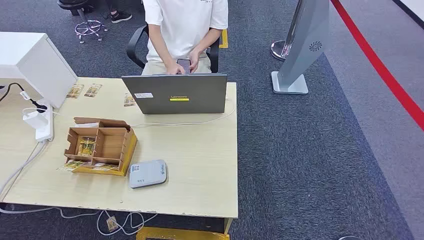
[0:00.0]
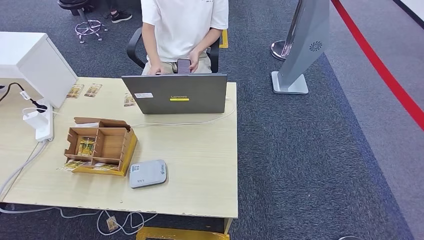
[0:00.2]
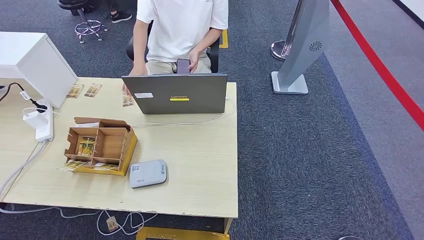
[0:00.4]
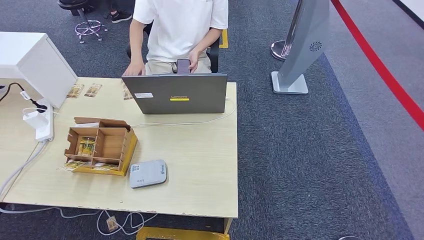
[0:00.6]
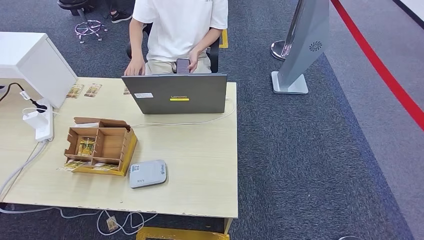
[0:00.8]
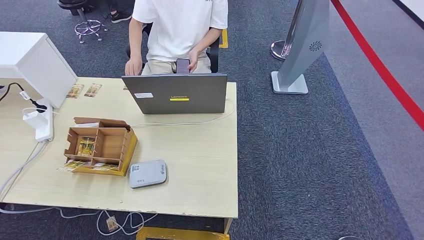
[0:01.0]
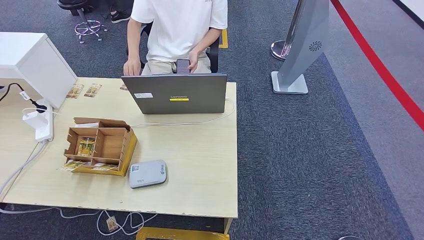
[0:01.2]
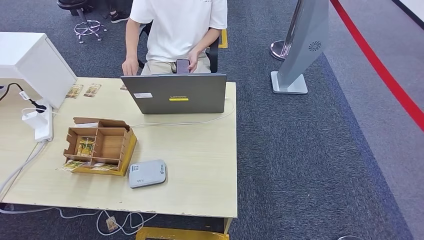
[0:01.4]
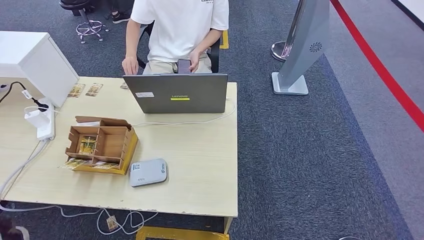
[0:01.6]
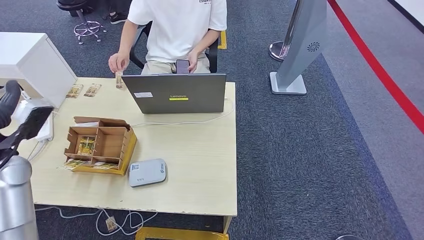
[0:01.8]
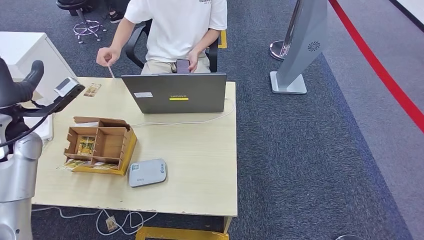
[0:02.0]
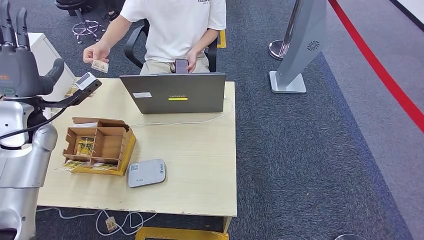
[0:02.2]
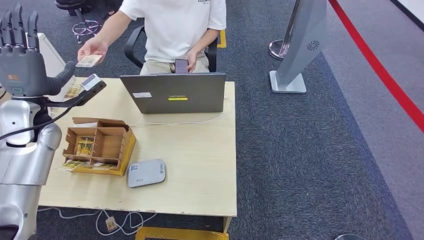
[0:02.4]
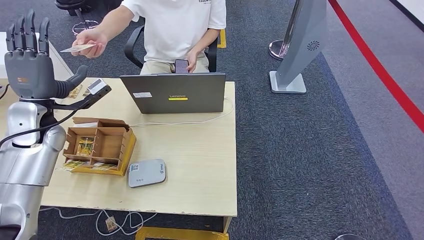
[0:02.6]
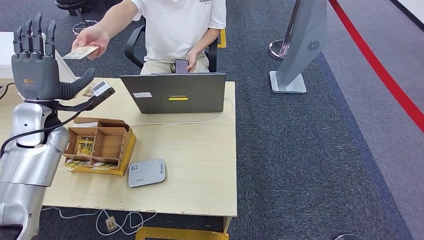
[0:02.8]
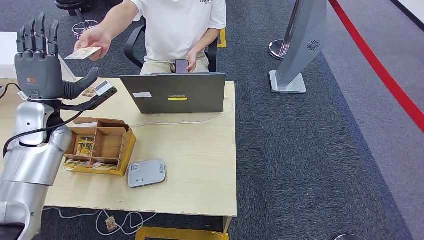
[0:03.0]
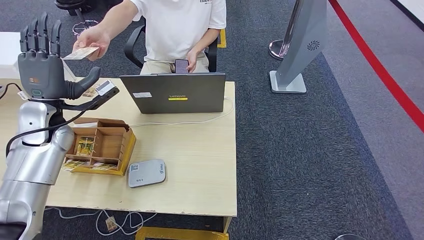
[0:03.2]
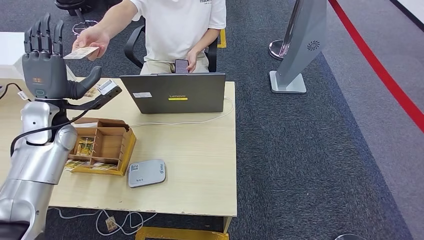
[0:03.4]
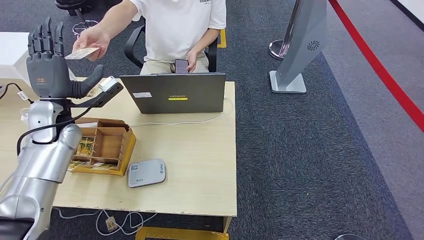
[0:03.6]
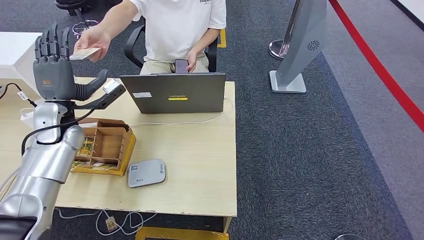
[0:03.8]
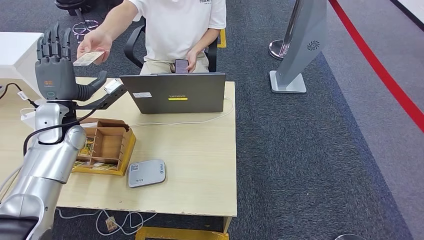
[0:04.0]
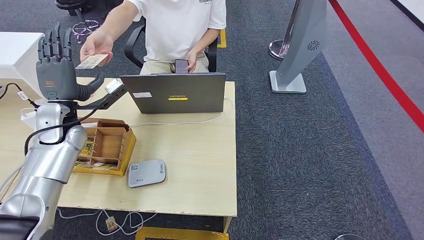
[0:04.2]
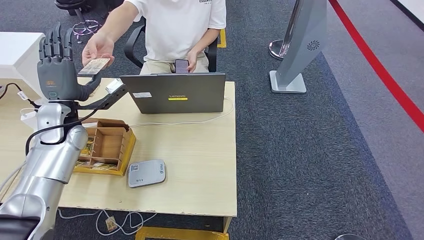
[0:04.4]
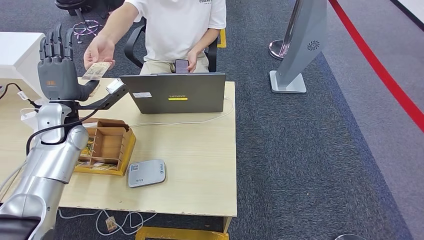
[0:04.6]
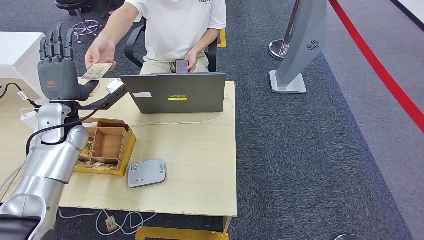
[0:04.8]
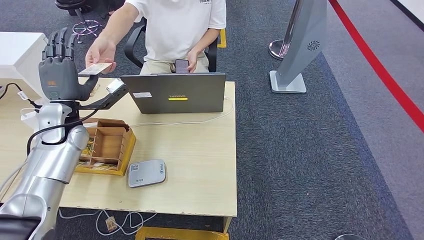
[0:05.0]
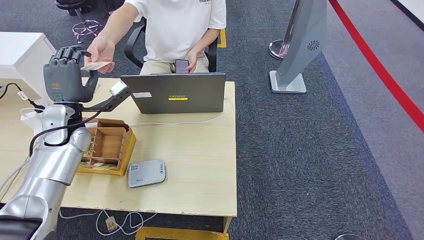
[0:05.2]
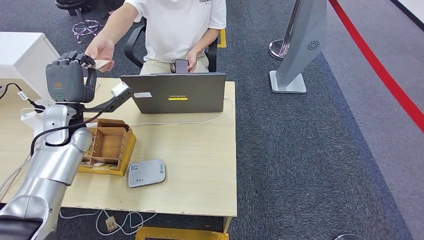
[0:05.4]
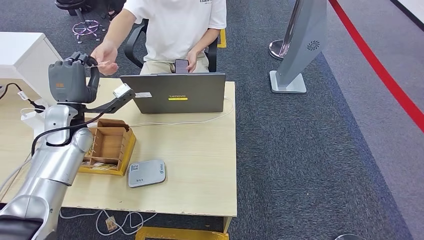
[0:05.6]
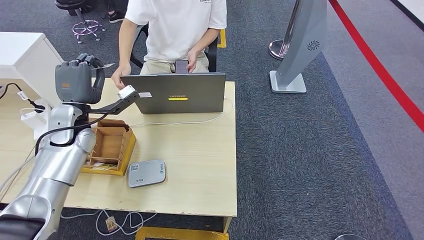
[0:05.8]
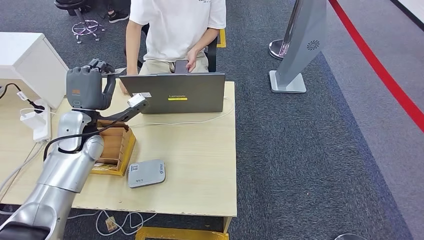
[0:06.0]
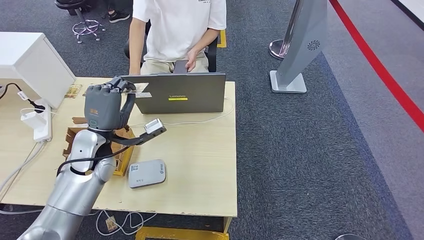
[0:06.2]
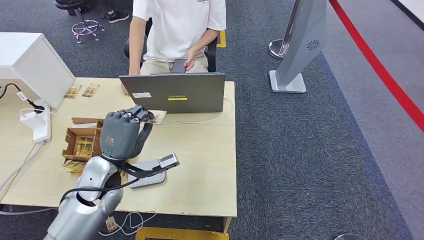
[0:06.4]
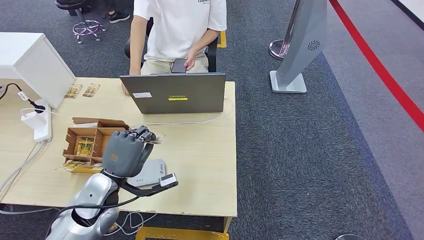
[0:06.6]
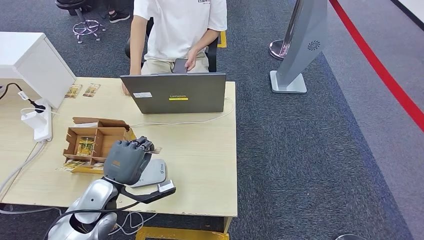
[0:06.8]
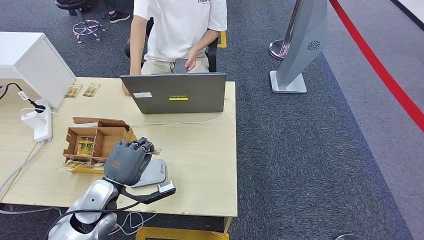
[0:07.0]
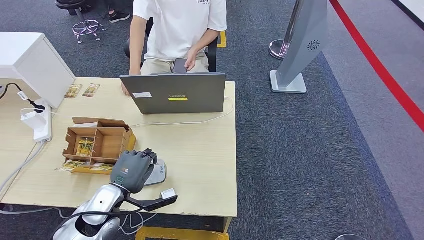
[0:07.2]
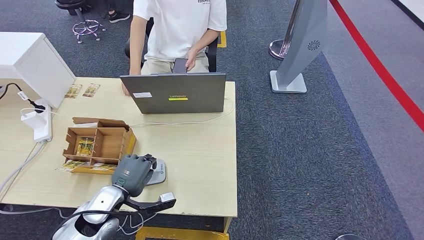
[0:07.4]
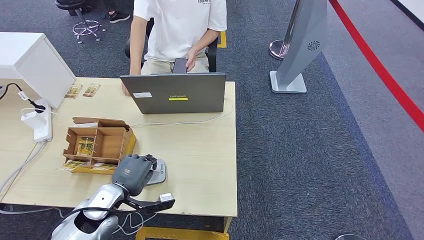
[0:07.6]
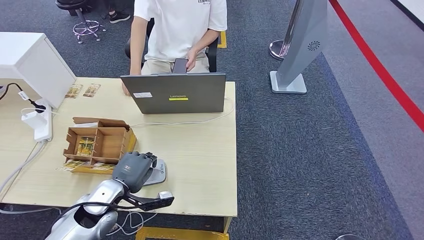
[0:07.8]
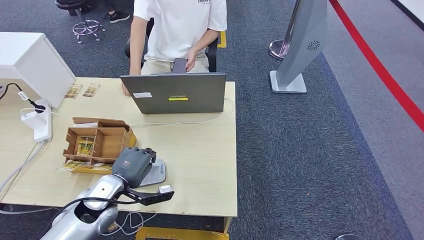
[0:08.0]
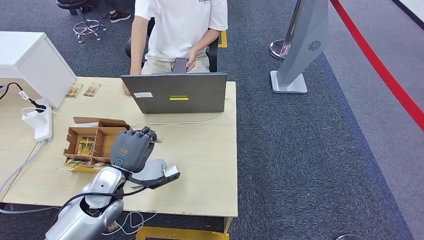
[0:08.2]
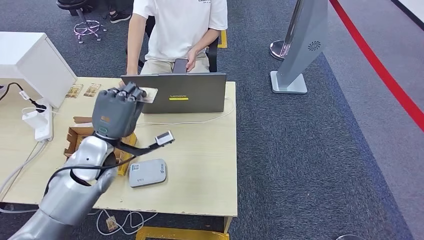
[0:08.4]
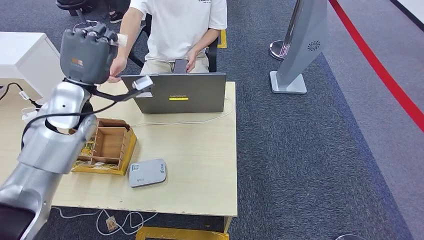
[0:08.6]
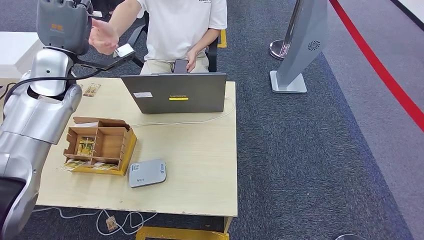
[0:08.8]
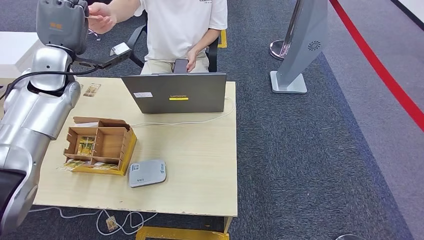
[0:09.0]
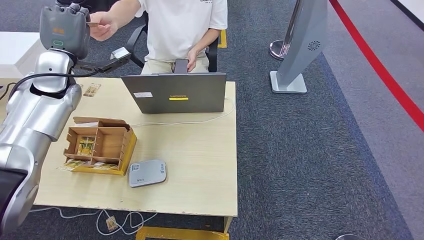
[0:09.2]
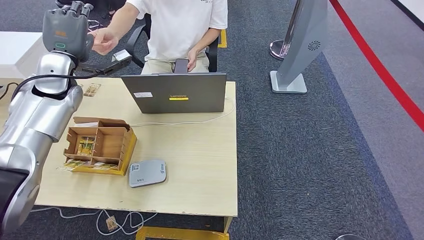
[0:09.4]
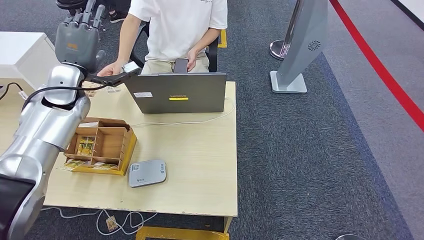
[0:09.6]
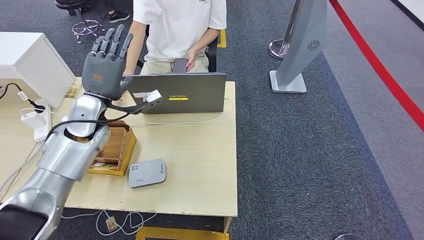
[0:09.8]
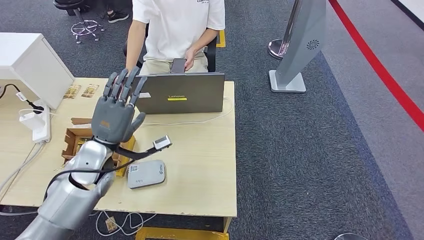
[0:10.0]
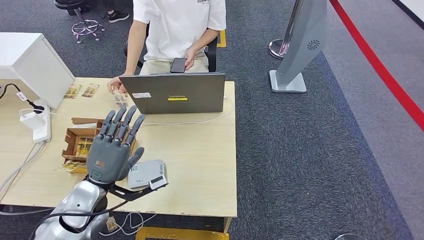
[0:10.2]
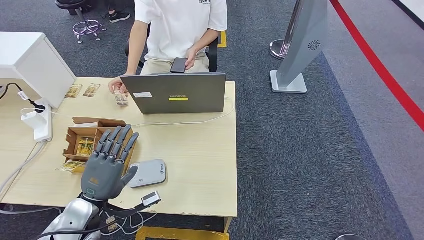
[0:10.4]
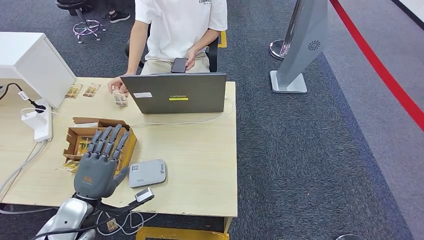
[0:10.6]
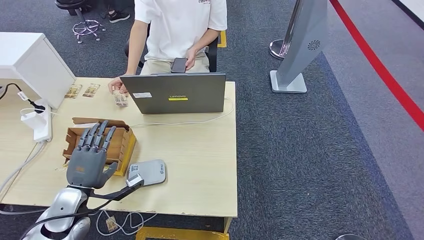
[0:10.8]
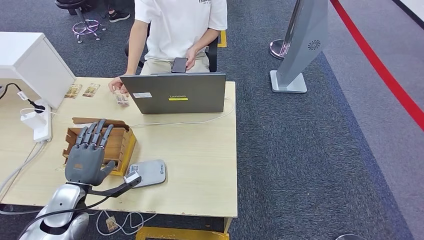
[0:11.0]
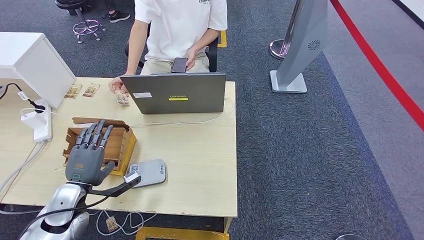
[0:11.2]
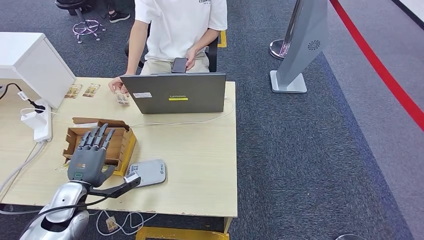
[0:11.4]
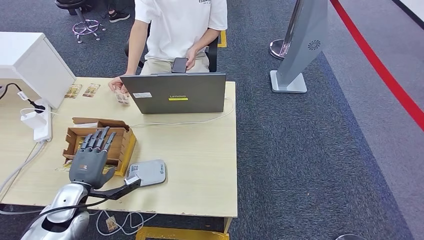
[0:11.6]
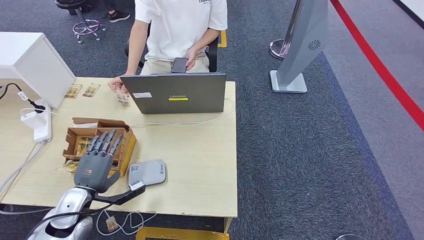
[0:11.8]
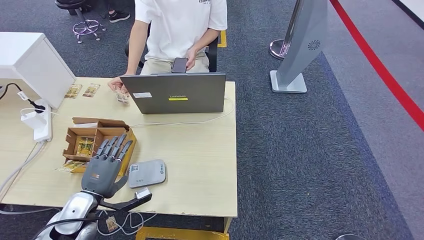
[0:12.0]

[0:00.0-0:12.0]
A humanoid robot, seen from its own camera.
Step, 0:00.0 to 0:06.0: Take the ID card from the person's hand.
Step, 0:06.2 to 0:08.4: Place the ID card on the card reader.
Step, 0:08.6 to 0:09.8: Hand the ID card to the person.
0:03.0 to 0:04.4: There are only small adjustments of the hands.
0:04.4 to 0:06.0: The hands stay close to where they were, moving slightly.
0:06.0 to 0:07.6: The left hand shifts roughly 20 cm backward and downward.
0:07.6 to 0:09.0: The left hand heads upward and forward, covering roughly 30 cm.
0:09.0 to 0:10.4: The left hand is displaced backward and downward by approximately 30 cm.
0:10.4 to 0:12.0: The left hand ends up approximately 5 cm from where it was.

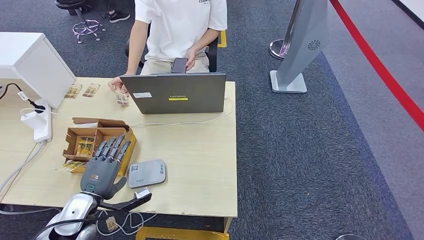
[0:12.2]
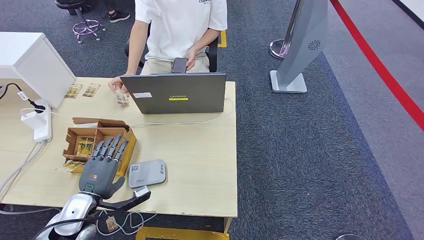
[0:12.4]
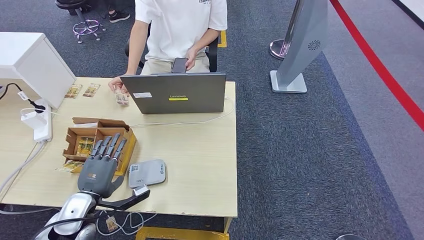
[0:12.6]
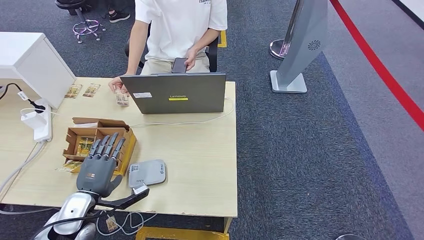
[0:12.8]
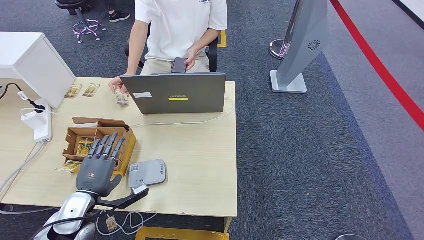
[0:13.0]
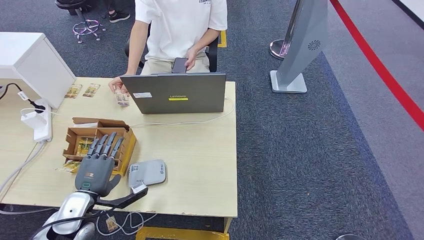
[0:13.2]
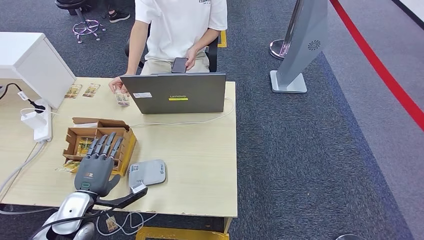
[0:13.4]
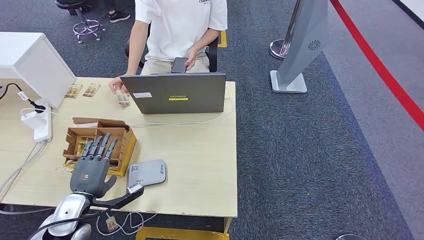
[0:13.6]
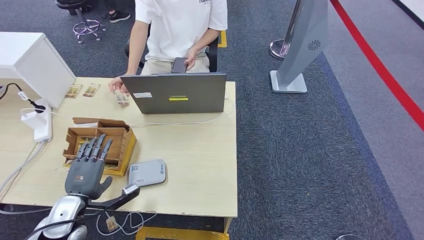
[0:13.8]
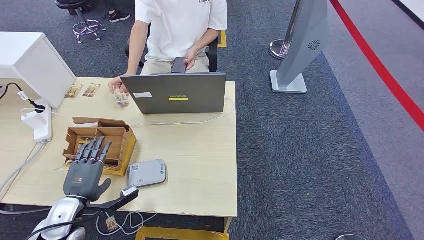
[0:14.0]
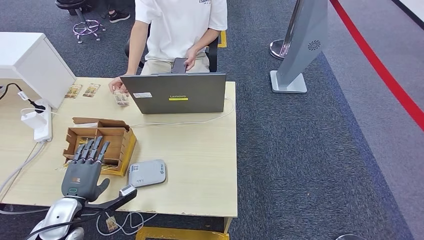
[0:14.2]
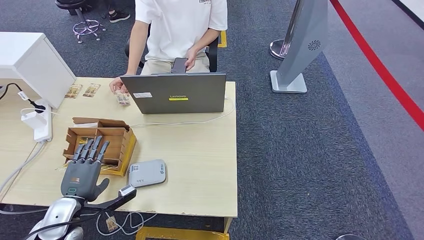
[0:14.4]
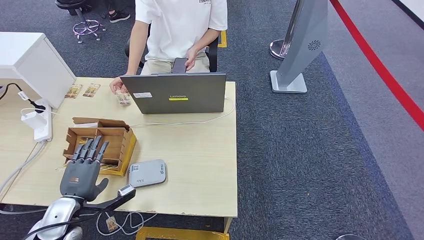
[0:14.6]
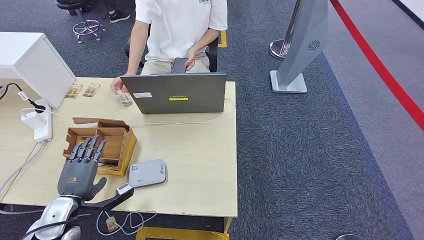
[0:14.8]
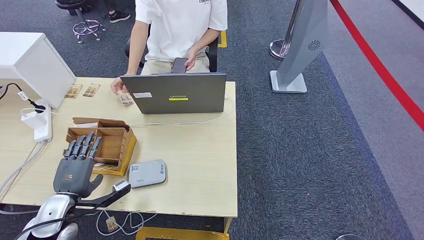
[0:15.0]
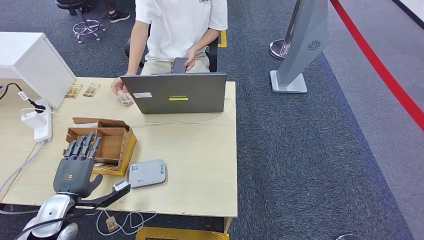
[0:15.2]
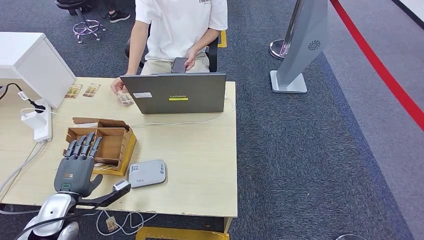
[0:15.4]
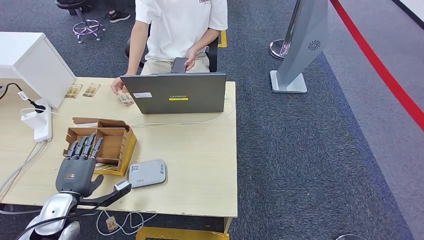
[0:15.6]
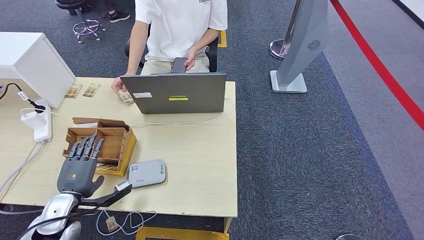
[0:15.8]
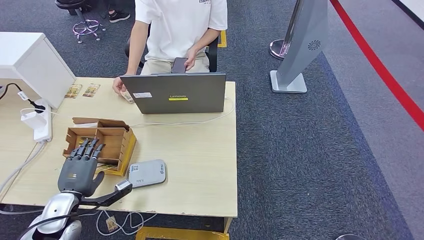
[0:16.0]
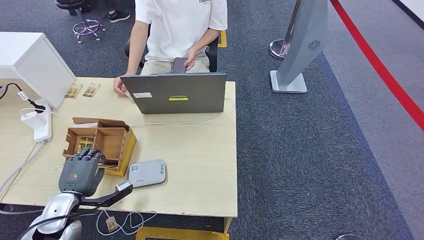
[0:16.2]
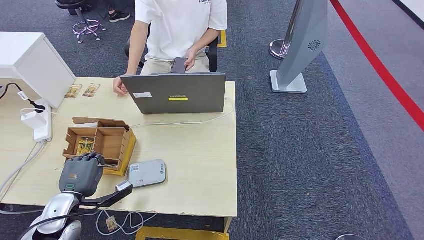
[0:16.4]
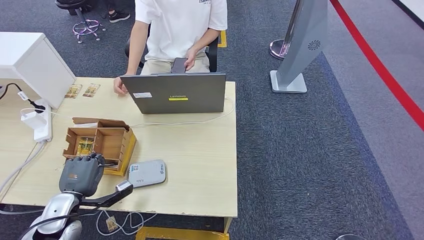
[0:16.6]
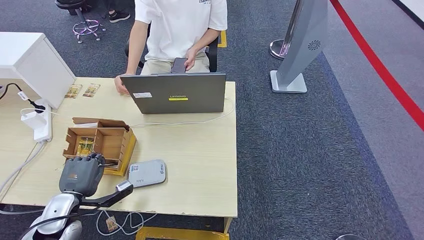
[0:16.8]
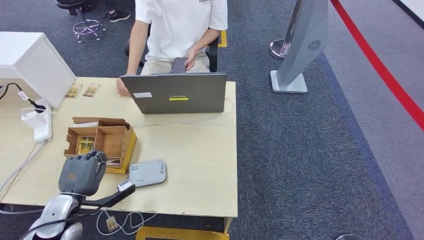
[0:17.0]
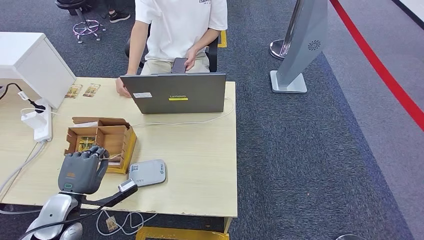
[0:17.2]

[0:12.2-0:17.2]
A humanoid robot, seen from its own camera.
Step, 0:12.2 to 0:17.0: Pick up the room key from the key card box.
0:12.2 to 0:17.2: There are only small adjustments of the hands.
